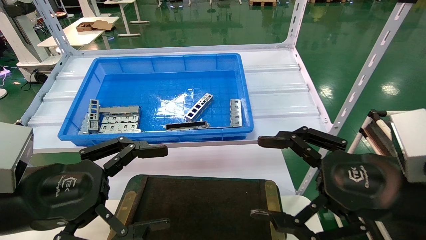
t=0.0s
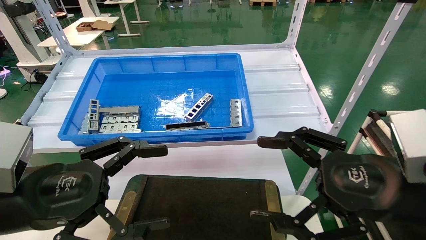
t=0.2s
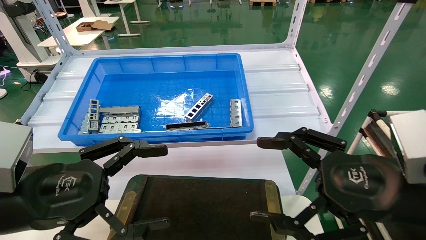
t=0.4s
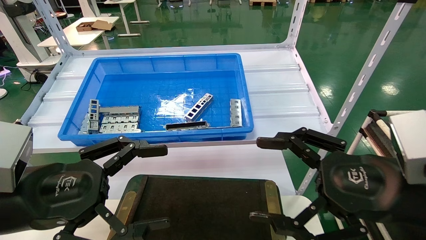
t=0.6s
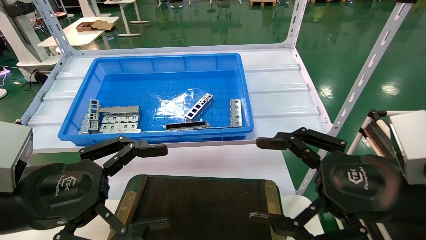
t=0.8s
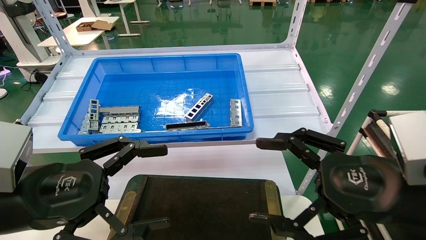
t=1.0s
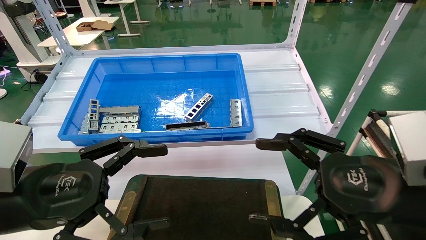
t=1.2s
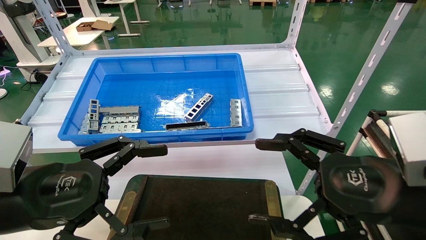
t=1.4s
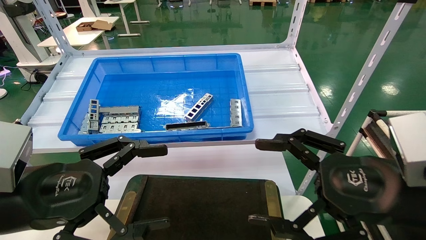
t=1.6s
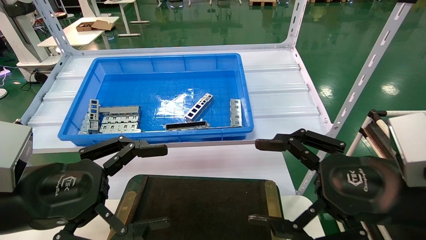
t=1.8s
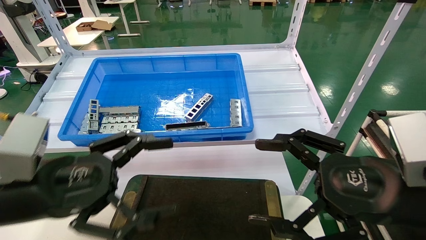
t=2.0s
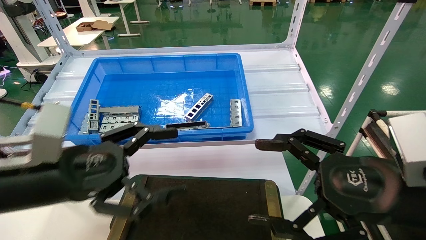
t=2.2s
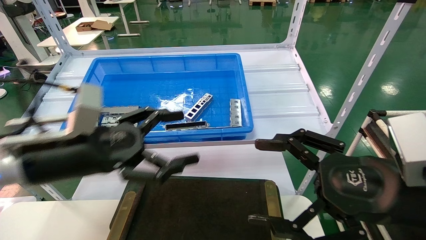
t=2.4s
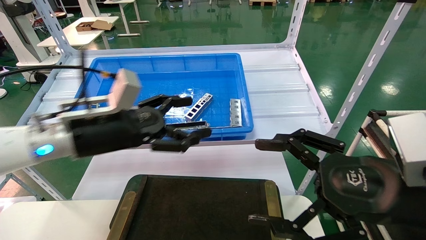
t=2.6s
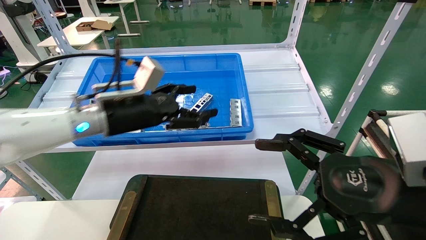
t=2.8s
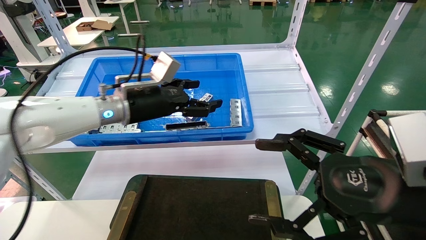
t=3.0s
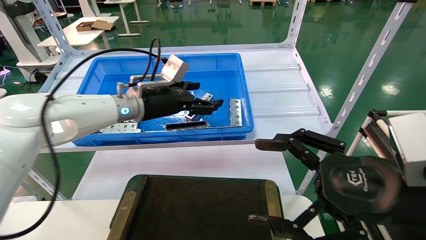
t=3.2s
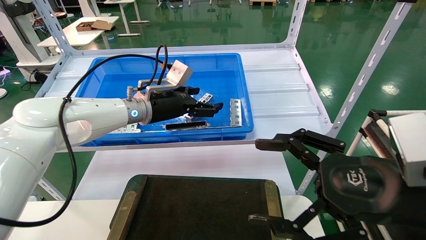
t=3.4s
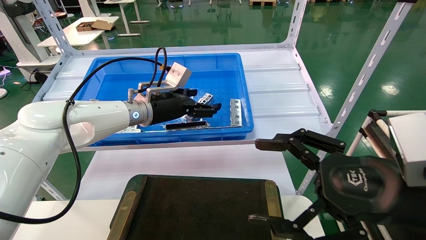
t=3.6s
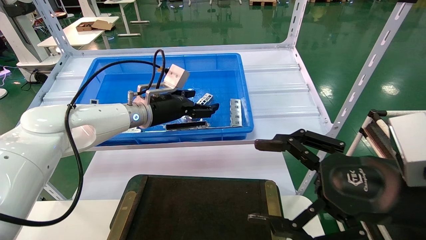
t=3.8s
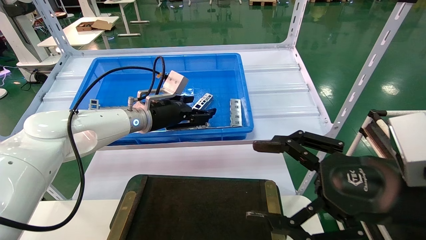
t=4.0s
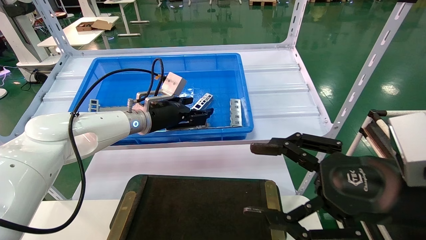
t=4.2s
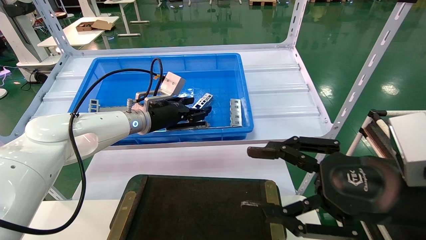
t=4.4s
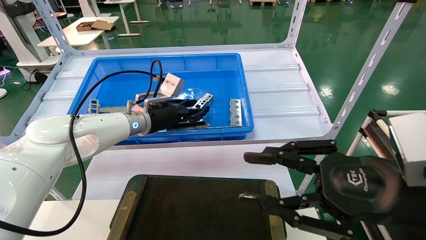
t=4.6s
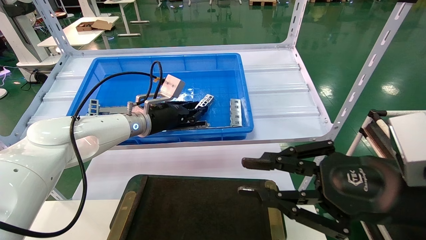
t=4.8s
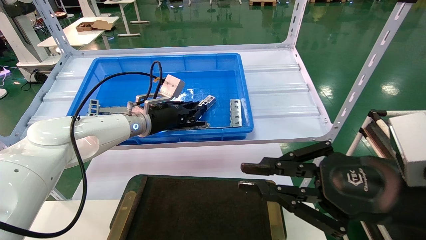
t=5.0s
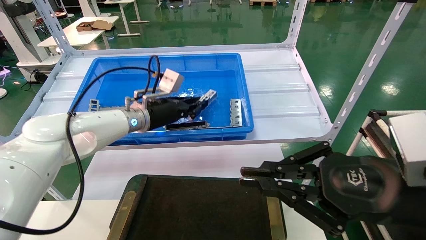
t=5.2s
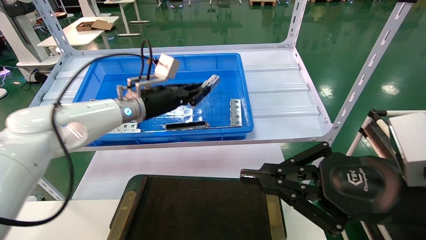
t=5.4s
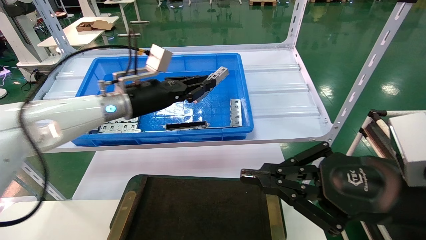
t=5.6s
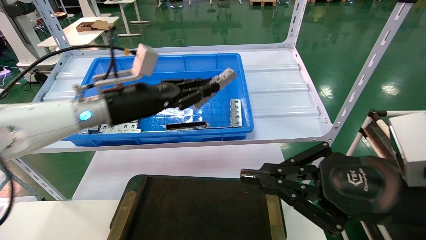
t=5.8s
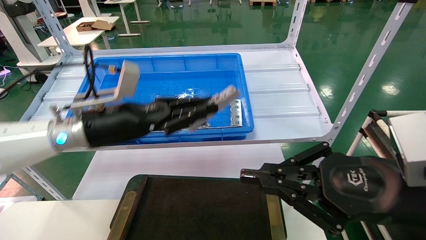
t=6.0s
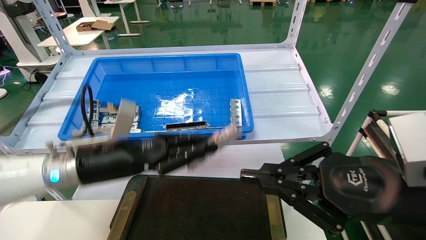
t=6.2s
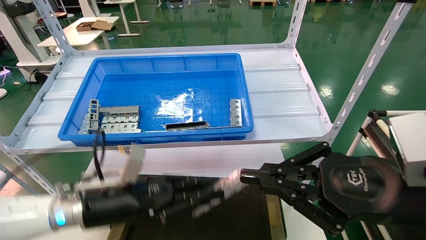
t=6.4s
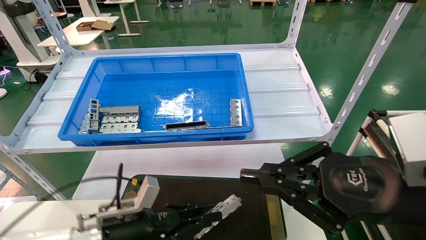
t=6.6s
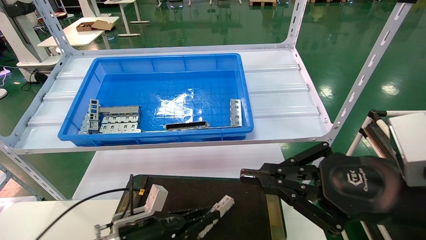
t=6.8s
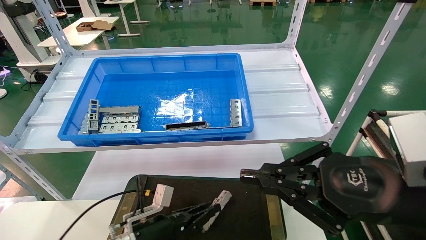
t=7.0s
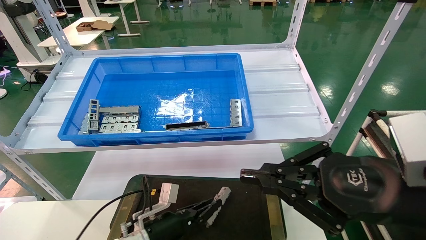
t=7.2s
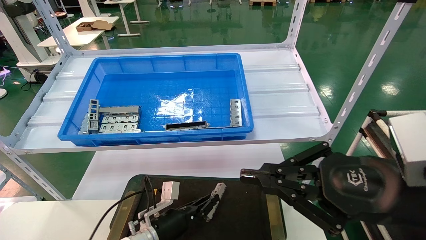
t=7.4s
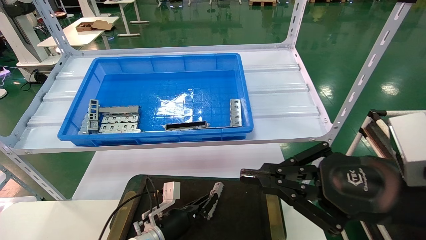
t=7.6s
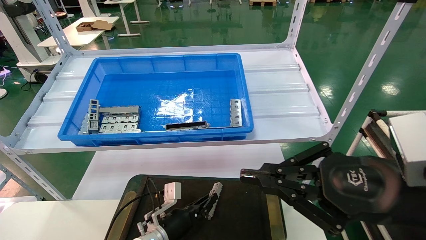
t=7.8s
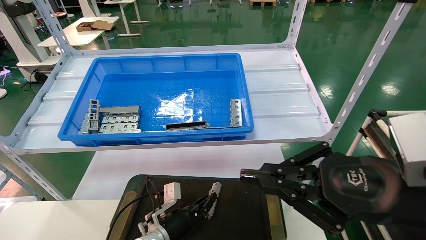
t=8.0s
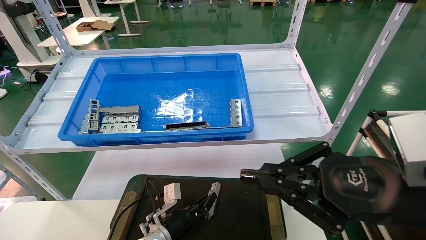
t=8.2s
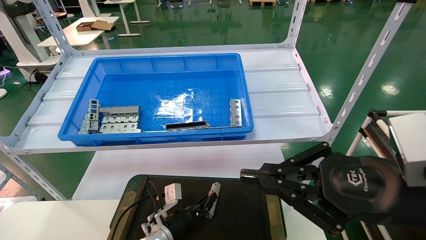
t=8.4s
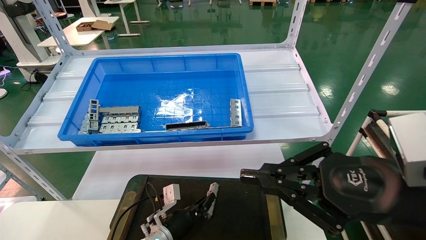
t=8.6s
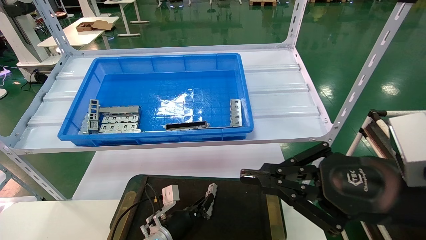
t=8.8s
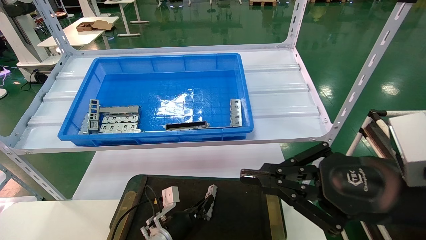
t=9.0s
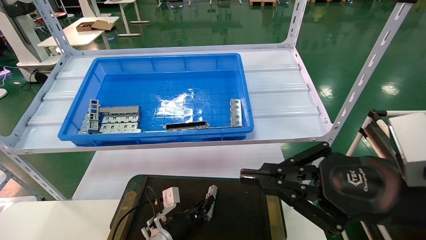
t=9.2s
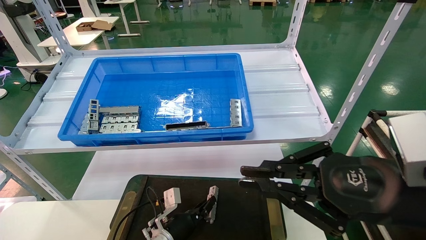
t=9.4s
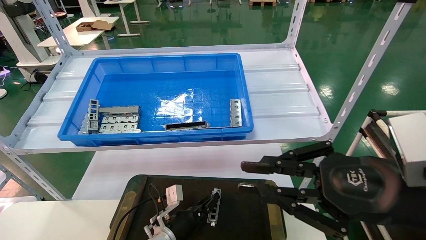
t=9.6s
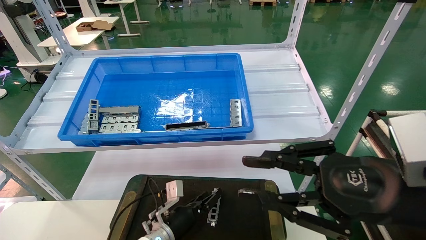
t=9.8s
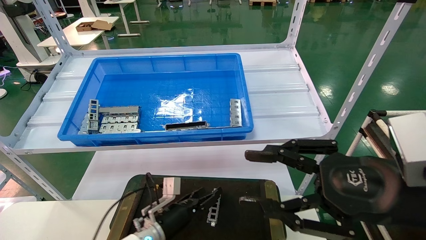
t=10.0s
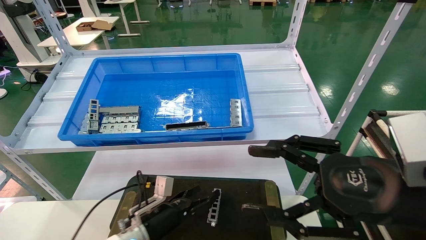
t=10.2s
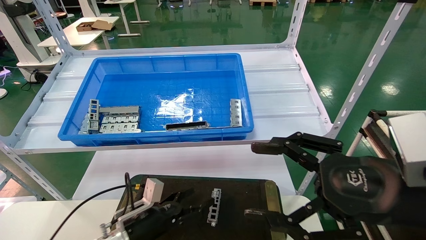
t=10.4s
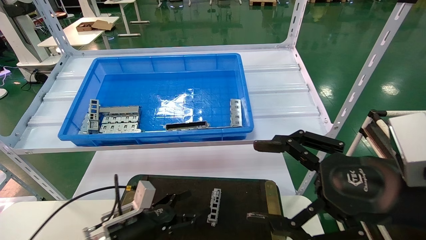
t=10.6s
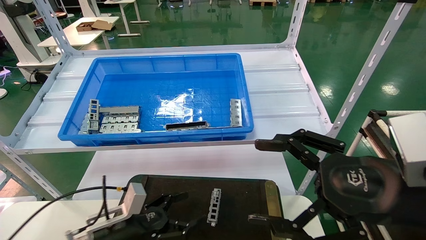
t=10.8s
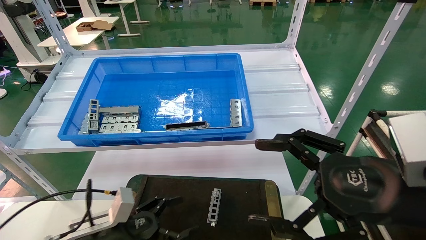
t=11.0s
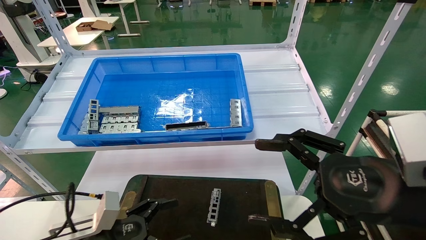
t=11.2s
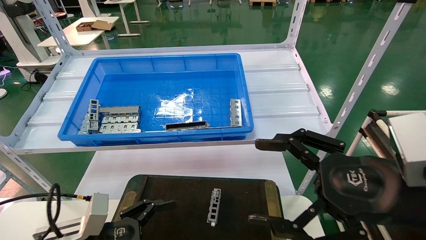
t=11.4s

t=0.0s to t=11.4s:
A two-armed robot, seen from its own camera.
Task of the whole recording: Grasp the part with one hand and place it on the black container.
Step, t=2.2s to t=5.4s: Pick up the front USB bracket from the feeding area.
Step, t=5.6s to t=9.6s: Place the front USB bracket into the box.
t=0.0s to t=1.4s: The two grippers keep their place.
t=1.4s to t=2.8s: The left gripper is displaced forward by roughly 20 cm.
t=2.8s to t=4.2s: The left gripper travels forward by approximately 10 cm.
t=4.2s to t=5.6s: The right gripper closes its fingers; the left gripper shifts by roughly 5 cm, and closes its fingers.
t=5.6s to t=7.2s: The left gripper moves downward, approximately 30 cm.
t=7.2s to t=8.6s: The left gripper changes place by some 5 cm.
t=8.6s to t=10.0s: The right gripper opens up, while the left gripper opens.
t=10.0s to t=11.4s: The right gripper opens its fingers; the left gripper heads backward, to the left and upward, covering approximately 20 cm, and opens its fingers.

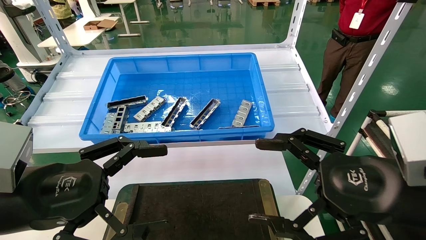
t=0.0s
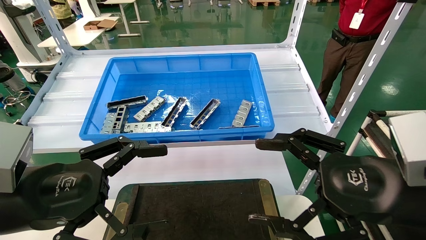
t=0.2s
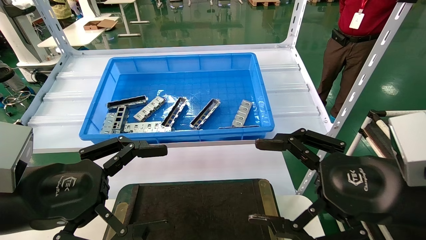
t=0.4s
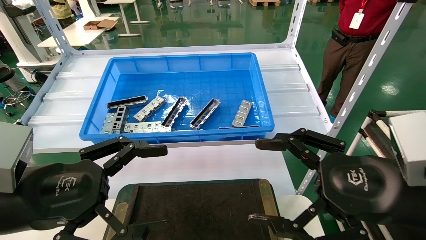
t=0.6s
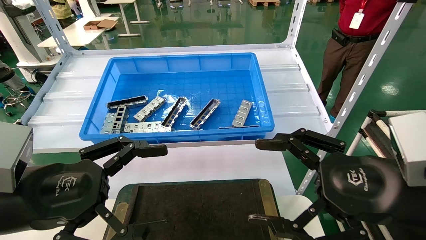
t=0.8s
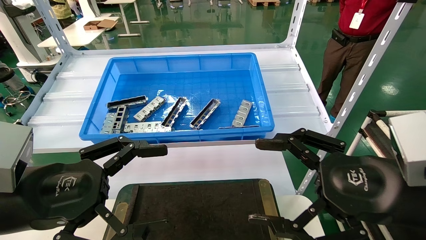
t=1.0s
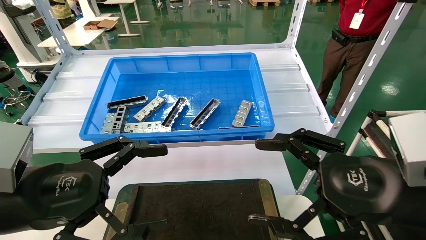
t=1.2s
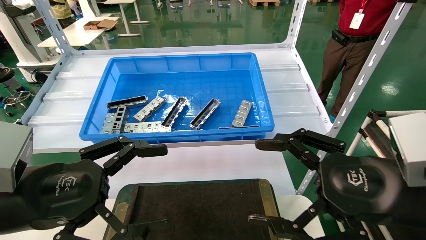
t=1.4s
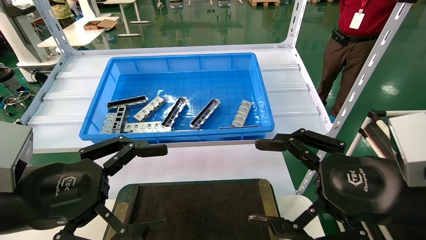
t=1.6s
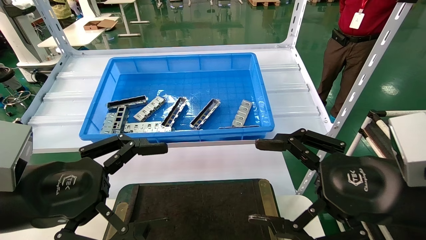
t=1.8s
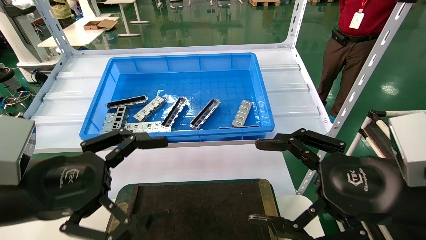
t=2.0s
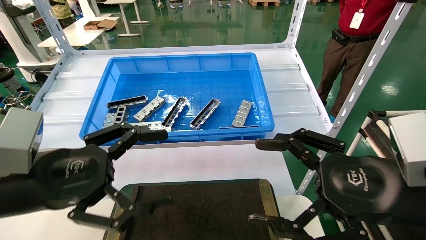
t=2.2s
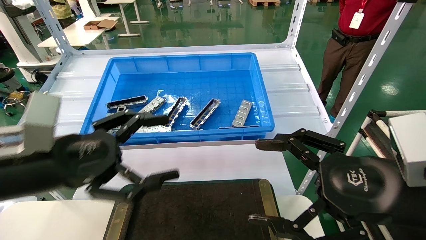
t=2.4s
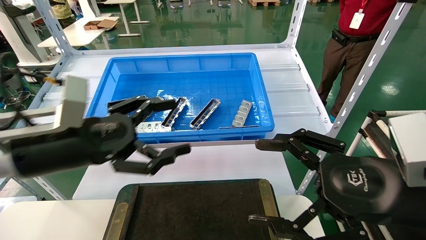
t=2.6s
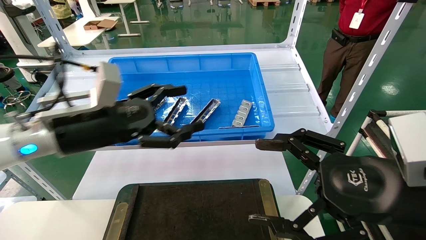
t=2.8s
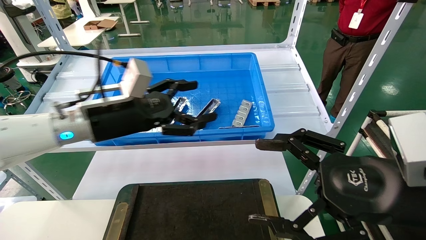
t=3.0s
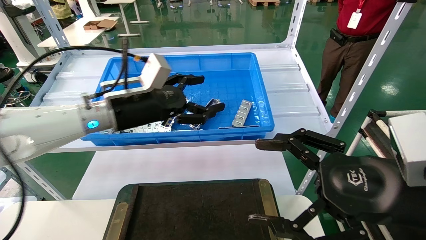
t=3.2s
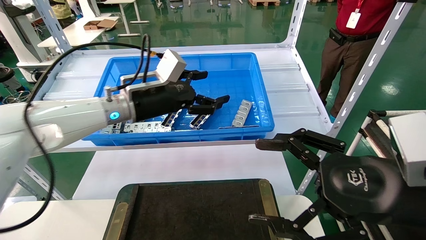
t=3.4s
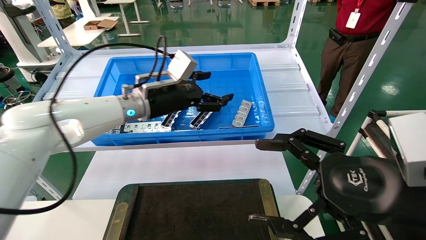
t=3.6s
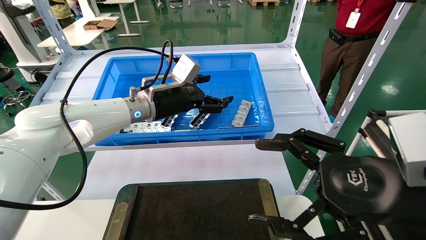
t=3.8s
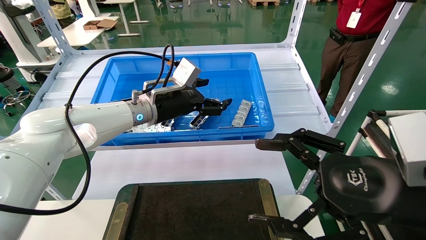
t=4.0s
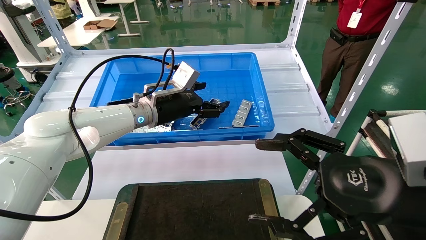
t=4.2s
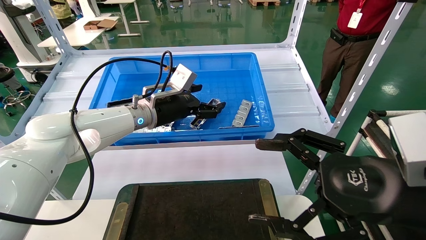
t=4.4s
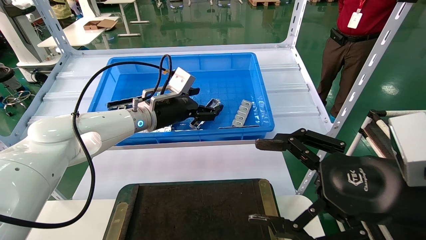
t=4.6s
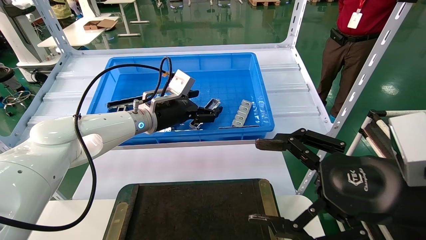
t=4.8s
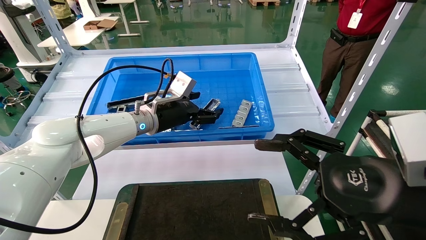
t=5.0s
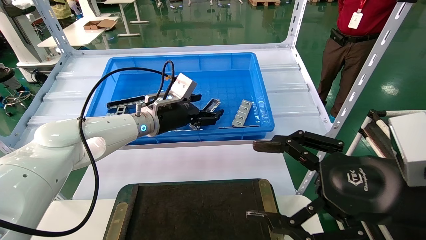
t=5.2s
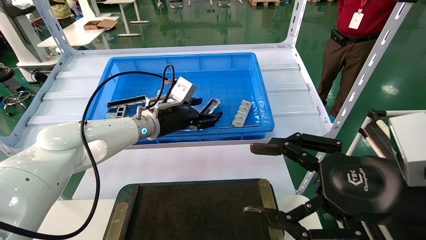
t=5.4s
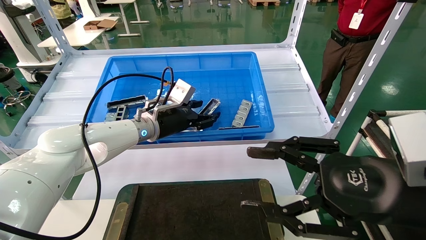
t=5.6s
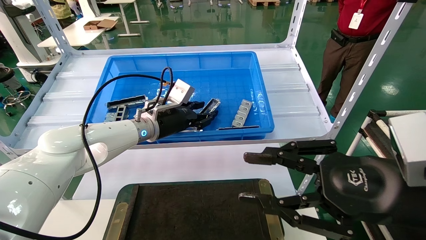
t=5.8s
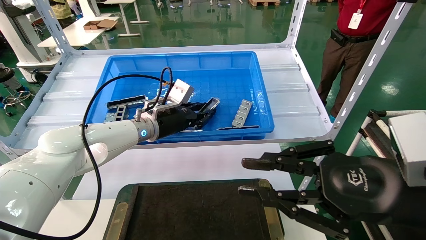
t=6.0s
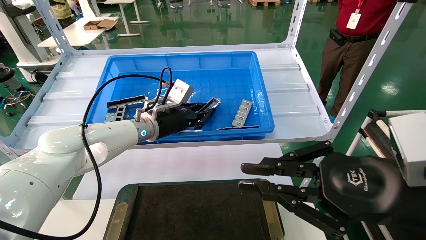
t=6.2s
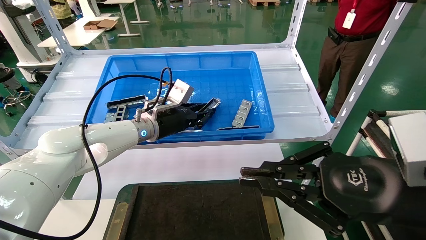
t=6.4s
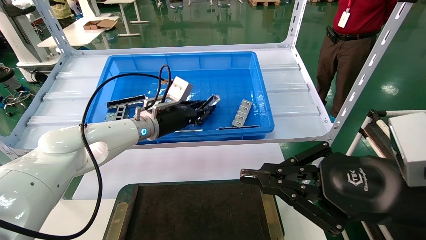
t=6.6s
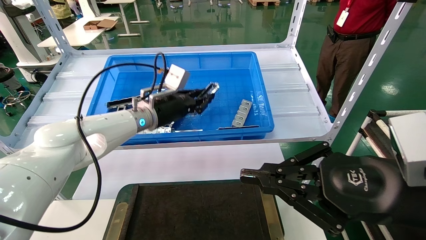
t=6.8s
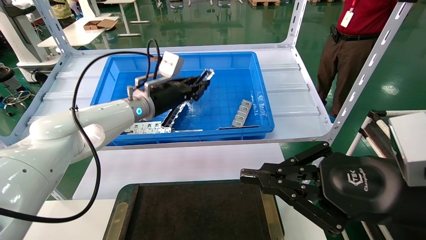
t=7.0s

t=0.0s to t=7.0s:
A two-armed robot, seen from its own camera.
Task of the whole recording: Grasp the part with one hand and place it on the black container.
Step, t=2.2s to t=6.8s: Pick up the front USB bracket from the feeding area.
t=0.0s to t=1.4s: The two grippers keep their place.
t=1.4s to t=2.8s: The left gripper heads forward, covering approximately 15 cm.
t=2.8s to t=4.2s: The left gripper heads forward and to the right, covering about 20 cm.
t=4.2s to t=5.6s: There are only small adjustments of the grippers.
t=5.6s to t=7.0s: The left gripper shifts approximately 5 cm upward, and closes. The right gripper closes.
